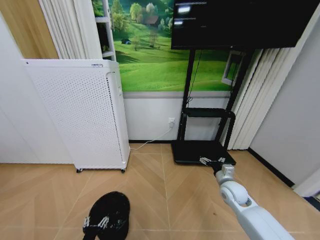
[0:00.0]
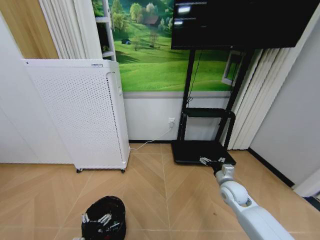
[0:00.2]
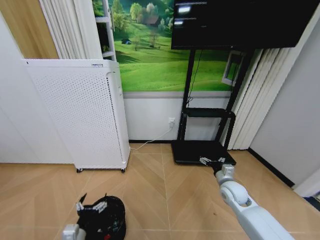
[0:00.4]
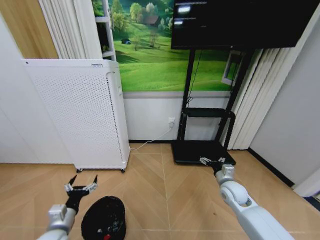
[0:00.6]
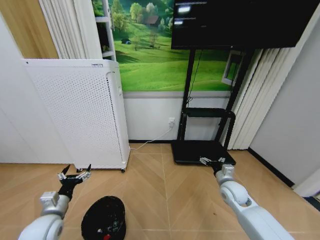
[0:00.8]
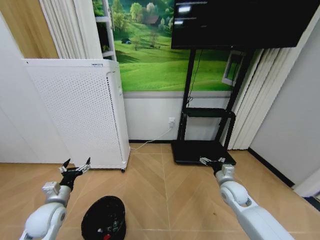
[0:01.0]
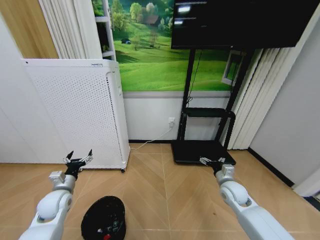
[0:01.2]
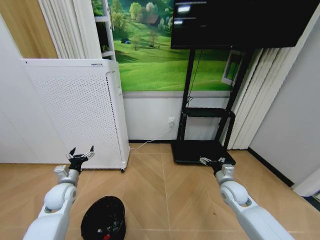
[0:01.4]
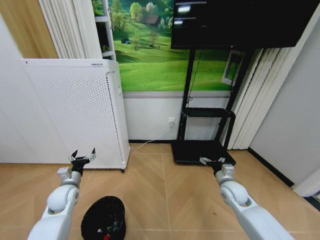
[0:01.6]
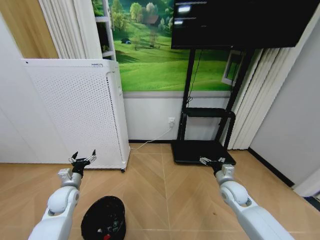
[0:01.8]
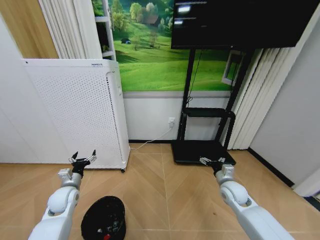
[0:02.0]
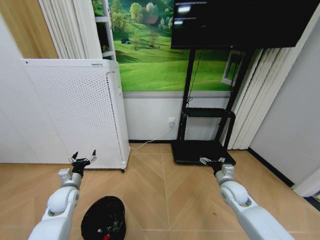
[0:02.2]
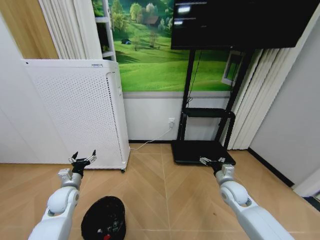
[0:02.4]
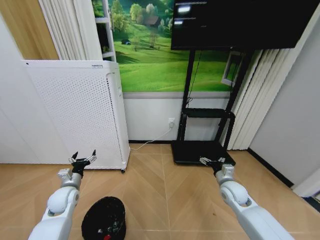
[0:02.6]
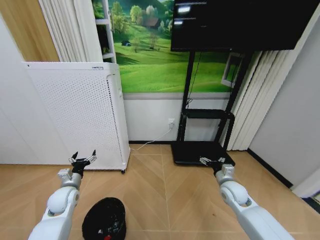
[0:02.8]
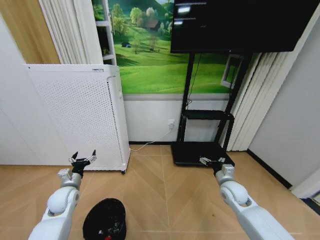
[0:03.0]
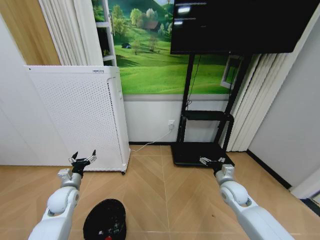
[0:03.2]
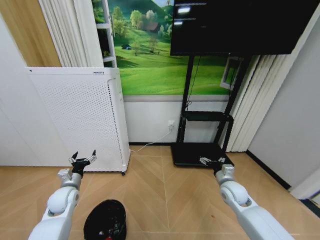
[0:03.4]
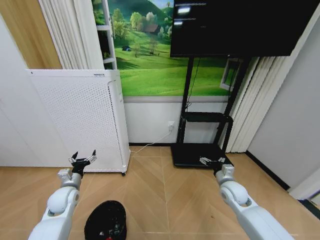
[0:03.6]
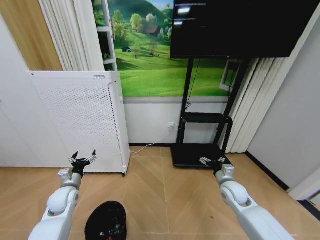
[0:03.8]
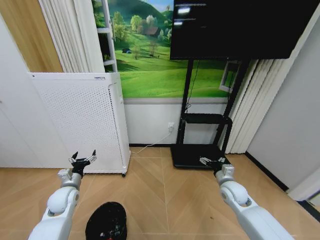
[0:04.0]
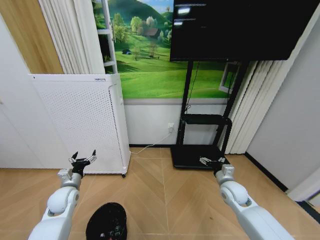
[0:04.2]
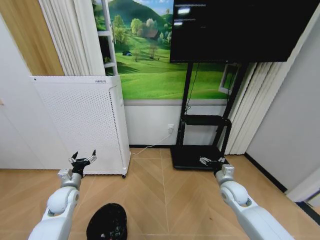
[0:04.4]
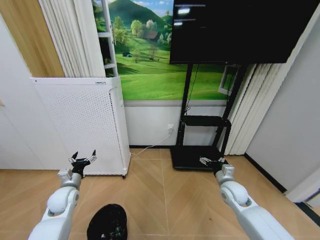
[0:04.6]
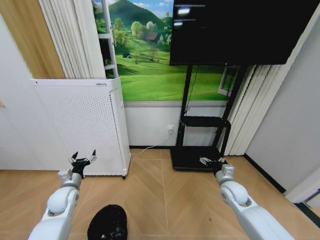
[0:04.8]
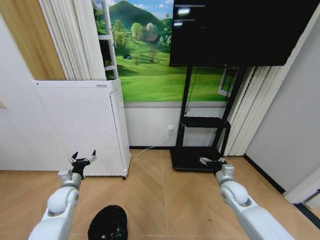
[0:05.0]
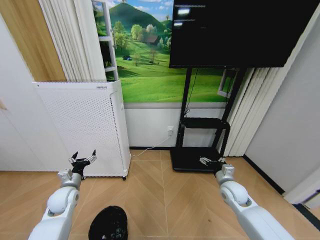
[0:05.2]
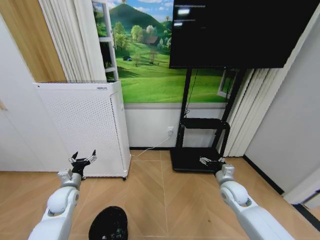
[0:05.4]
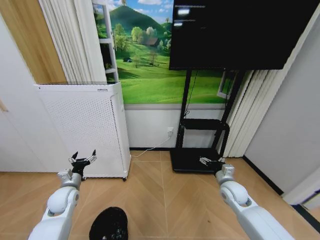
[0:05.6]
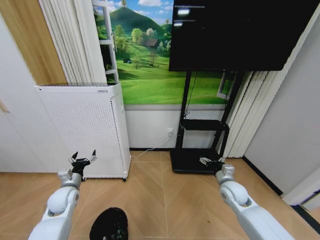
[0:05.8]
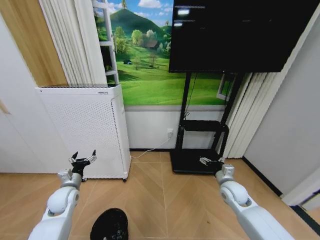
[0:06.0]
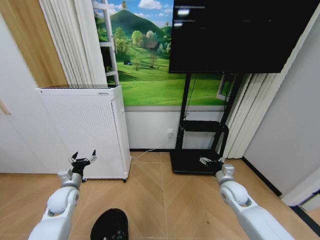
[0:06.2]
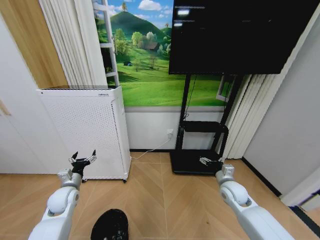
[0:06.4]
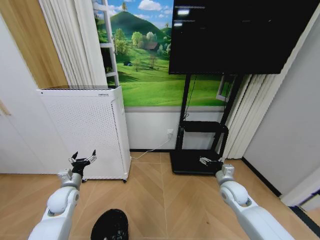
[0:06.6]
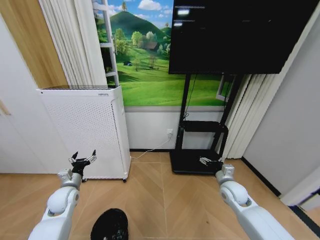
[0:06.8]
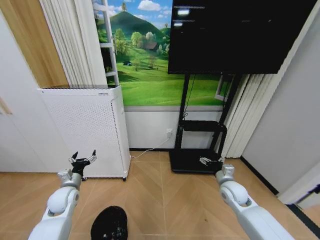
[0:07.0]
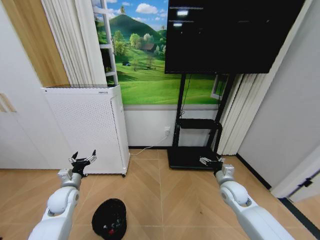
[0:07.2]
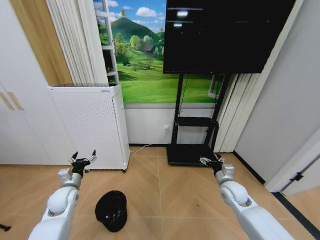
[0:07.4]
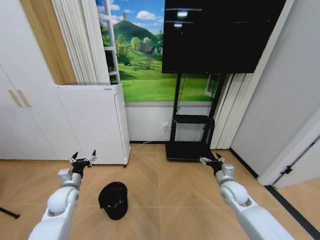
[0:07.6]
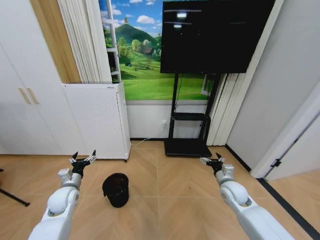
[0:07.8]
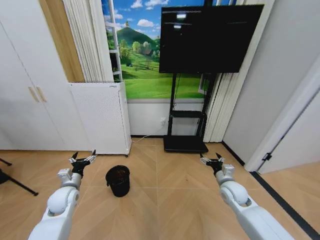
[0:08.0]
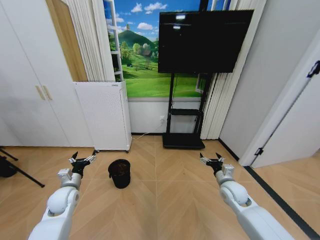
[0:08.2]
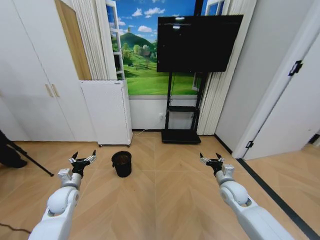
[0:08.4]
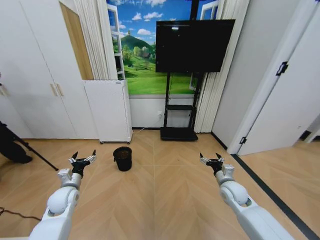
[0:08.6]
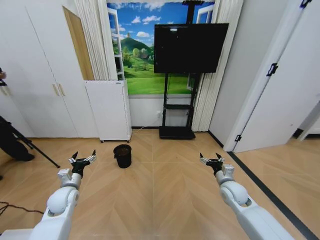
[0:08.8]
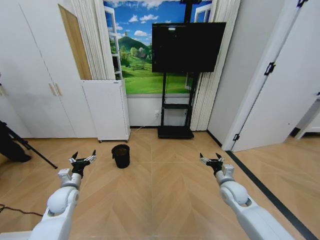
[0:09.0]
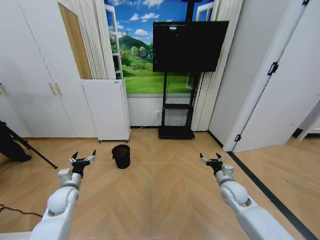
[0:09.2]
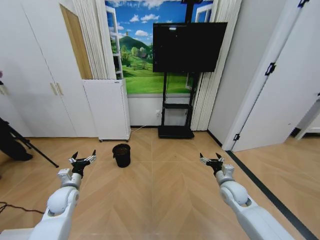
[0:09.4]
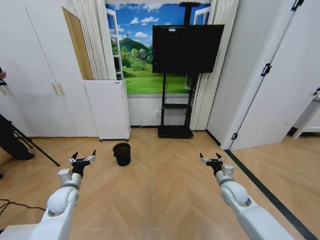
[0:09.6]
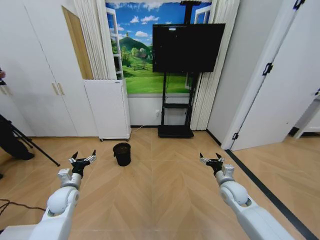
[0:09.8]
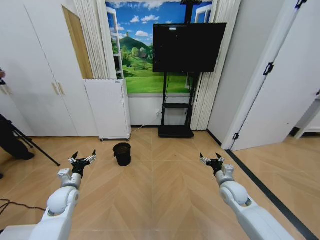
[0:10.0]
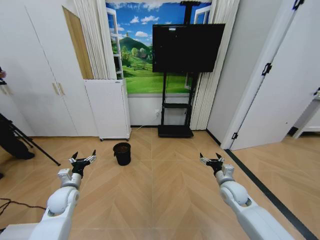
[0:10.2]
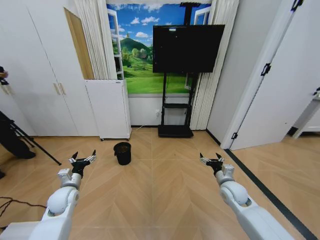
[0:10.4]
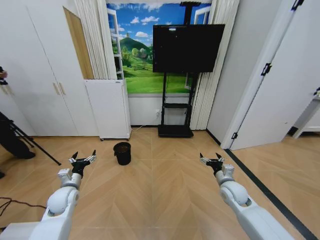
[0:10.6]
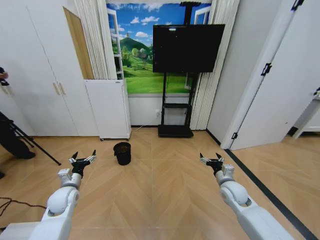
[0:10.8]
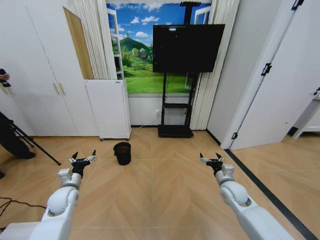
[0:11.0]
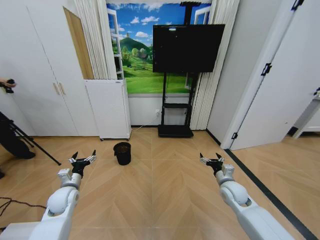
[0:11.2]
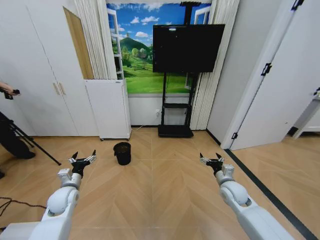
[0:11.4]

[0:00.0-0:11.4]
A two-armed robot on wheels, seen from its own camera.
Task of the whole recording: Pick up the trash bin and place the garbage on the floor into it.
0:00.0 to 0:01.4: The left gripper heads forward, upward and to the left, covering about 30 cm.
0:01.4 to 0:02.8: There are only small adjustments of the grippers.
0:02.8 to 0:07.2: Both grippers stay about where they are.
0:08.6 to 0:11.4: Both grippers stay about where they are.

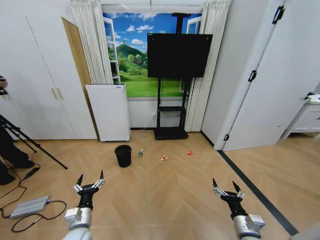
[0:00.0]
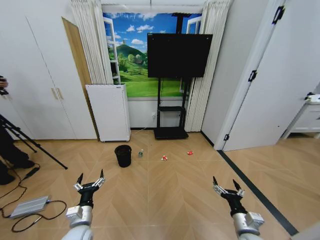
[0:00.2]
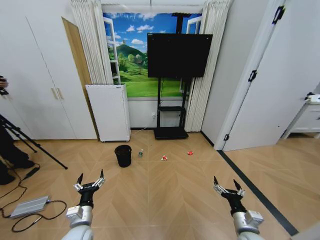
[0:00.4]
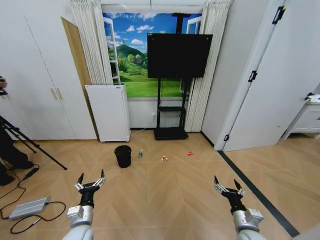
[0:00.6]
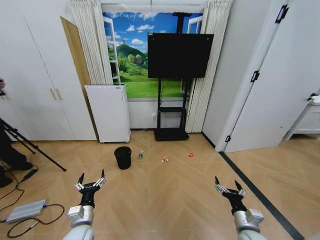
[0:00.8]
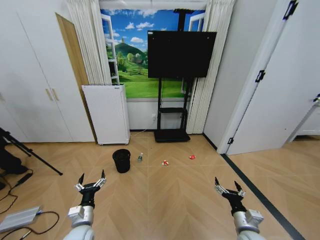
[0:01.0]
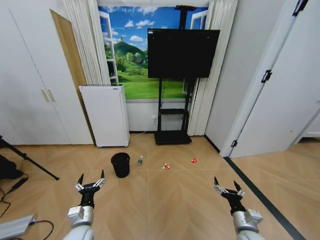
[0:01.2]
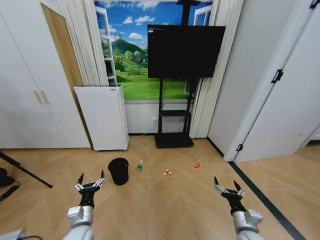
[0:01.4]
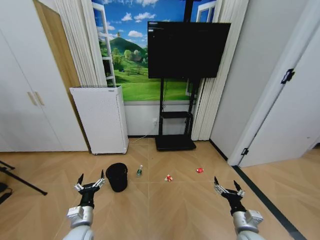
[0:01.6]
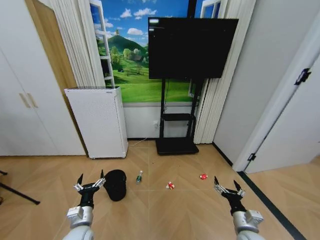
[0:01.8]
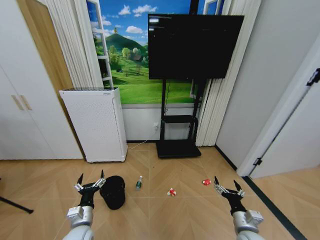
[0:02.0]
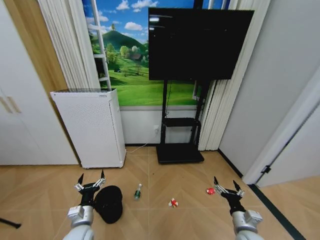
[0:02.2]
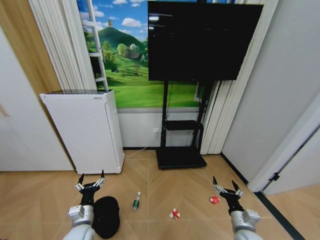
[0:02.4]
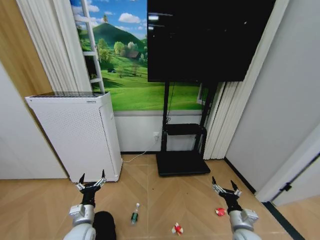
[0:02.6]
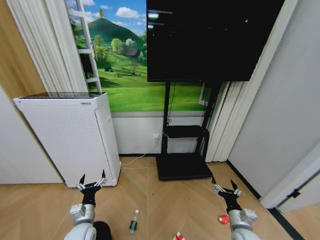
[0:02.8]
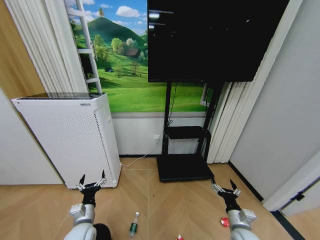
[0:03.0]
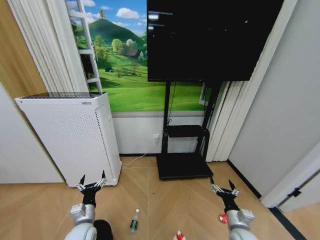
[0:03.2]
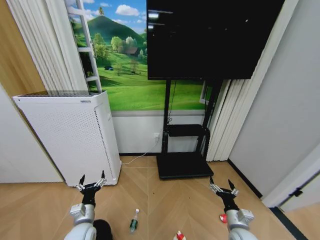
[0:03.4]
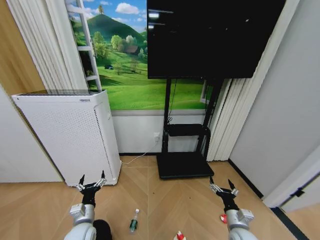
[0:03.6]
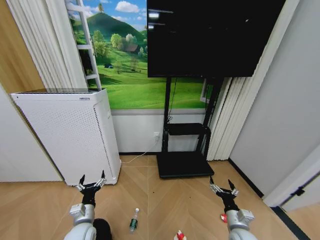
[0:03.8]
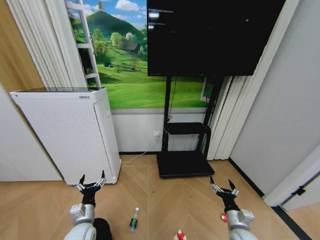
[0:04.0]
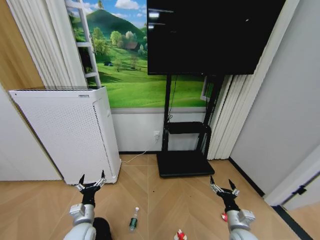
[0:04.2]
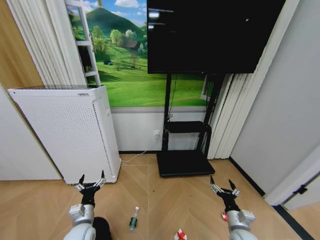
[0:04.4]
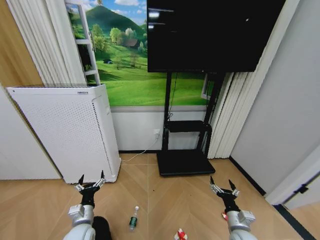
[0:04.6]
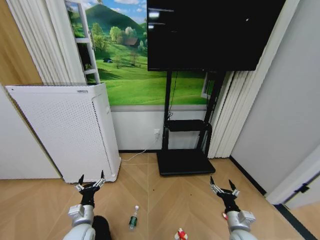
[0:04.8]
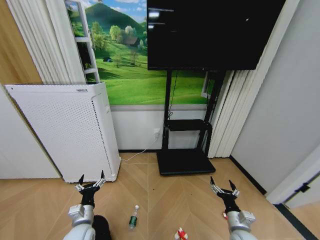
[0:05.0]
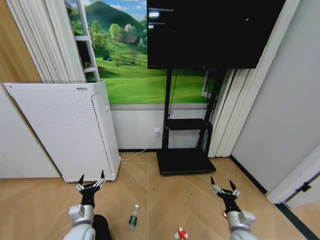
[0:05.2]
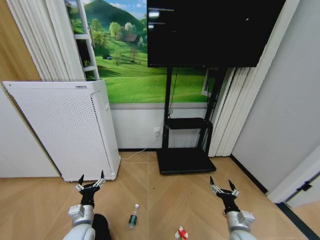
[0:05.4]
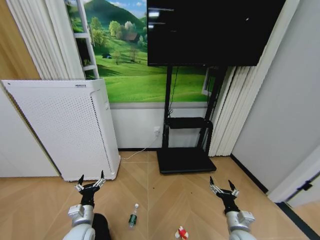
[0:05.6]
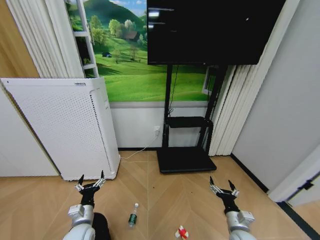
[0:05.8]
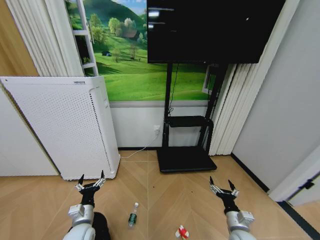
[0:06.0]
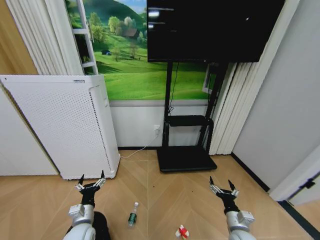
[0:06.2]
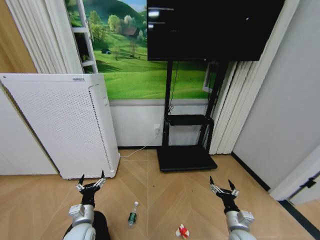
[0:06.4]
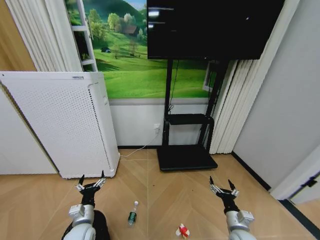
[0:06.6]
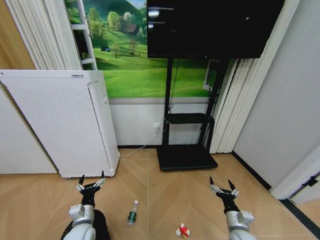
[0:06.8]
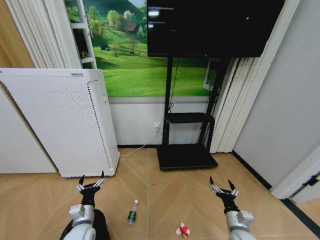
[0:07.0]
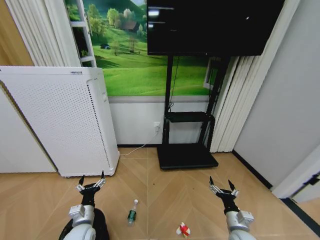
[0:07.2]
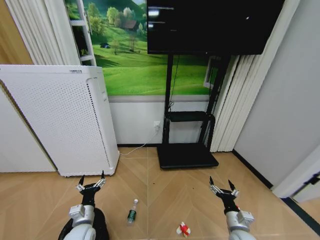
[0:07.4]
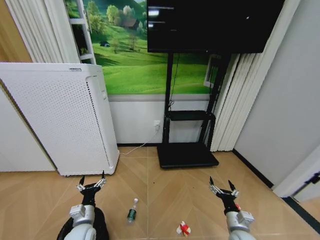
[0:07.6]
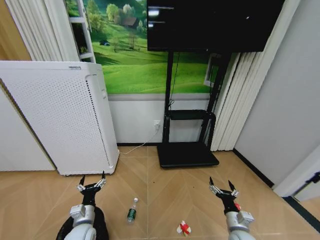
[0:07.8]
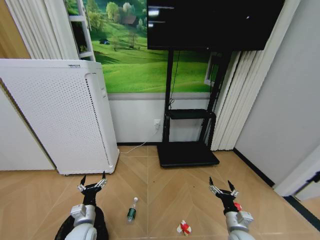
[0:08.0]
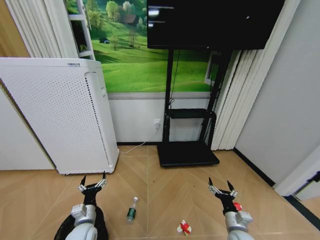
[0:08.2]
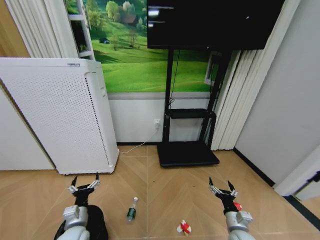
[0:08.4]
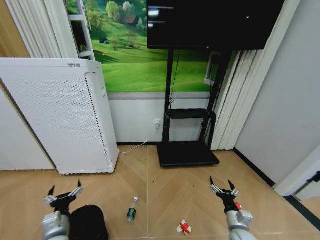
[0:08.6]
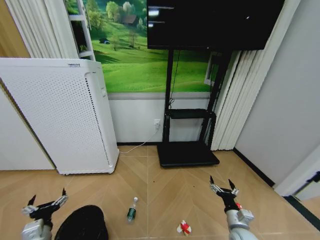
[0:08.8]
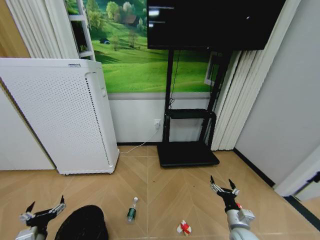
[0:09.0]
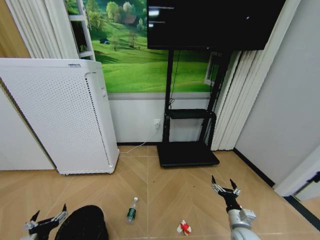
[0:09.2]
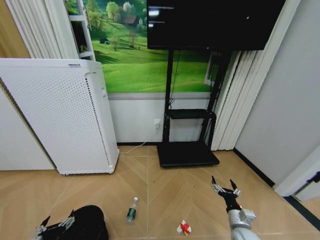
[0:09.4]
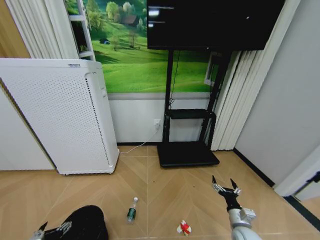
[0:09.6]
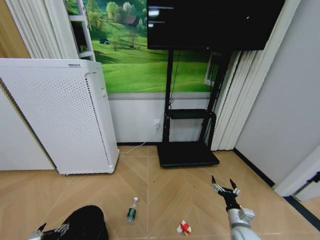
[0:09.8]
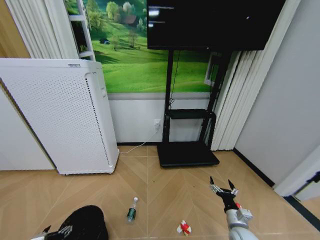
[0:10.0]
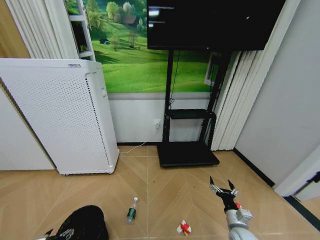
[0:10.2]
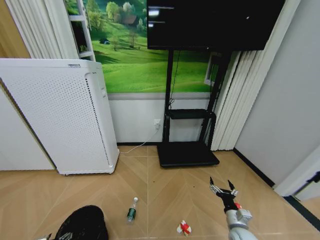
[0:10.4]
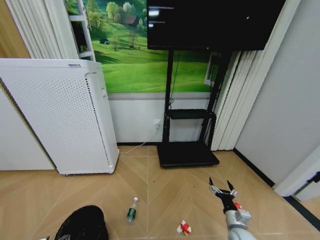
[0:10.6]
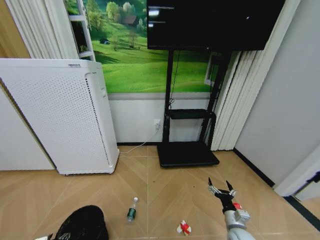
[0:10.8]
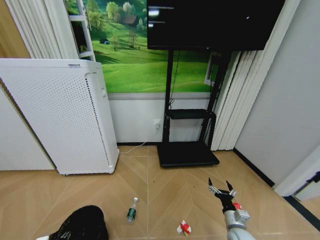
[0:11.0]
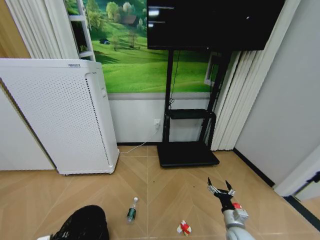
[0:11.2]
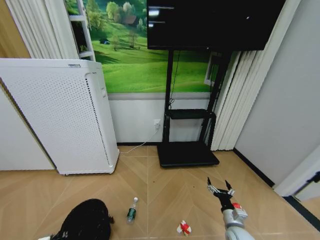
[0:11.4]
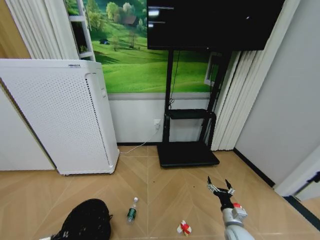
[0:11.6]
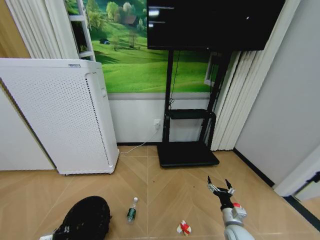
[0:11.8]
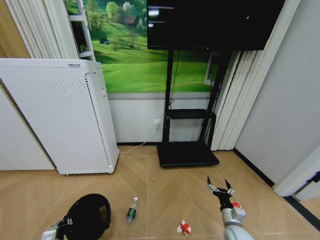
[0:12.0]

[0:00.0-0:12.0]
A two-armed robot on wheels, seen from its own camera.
Task of the whole recording: Pick up the trash bin and place the garbage on the floor into it.
0:03.0 to 0:07.6: Both grippers stay about where they are.
0:07.6 to 0:09.0: The left gripper shifts approximately 15 cm to the left and backward.
0:09.0 to 0:10.4: The left gripper ends up about 5 cm from where it was.
0:10.4 to 0:12.0: The left gripper closes up.
